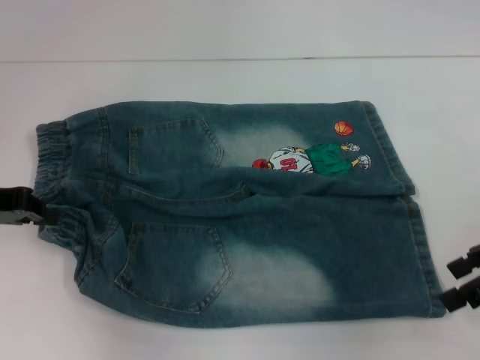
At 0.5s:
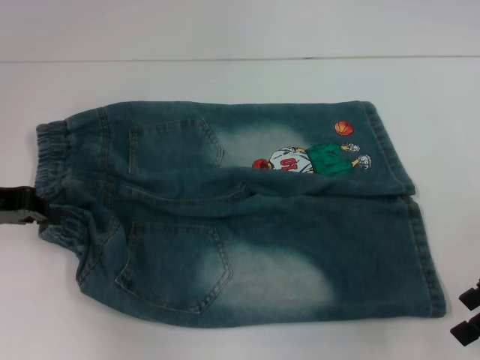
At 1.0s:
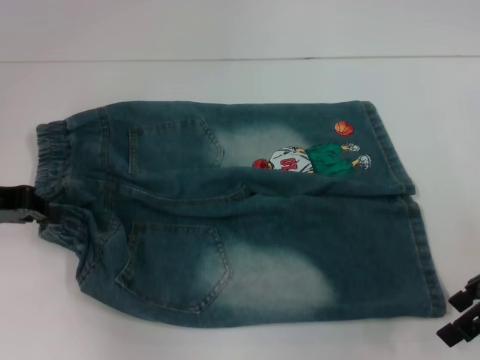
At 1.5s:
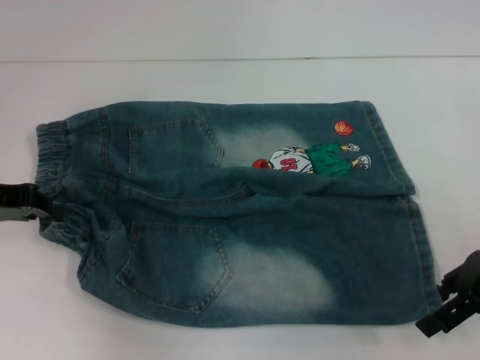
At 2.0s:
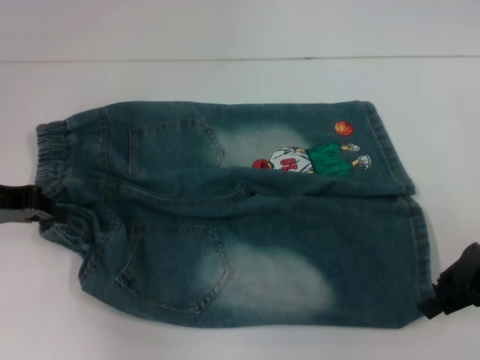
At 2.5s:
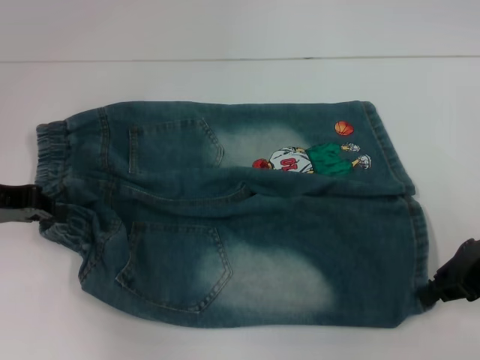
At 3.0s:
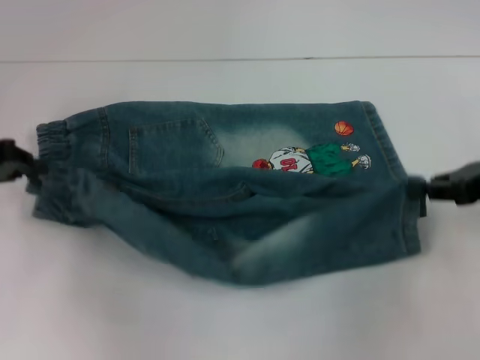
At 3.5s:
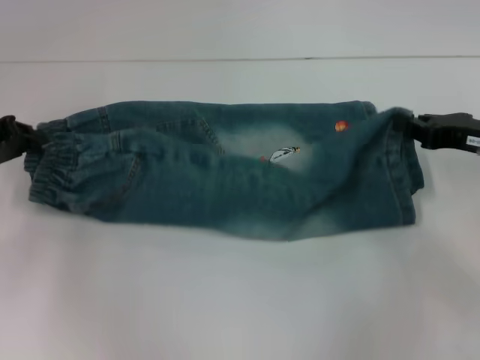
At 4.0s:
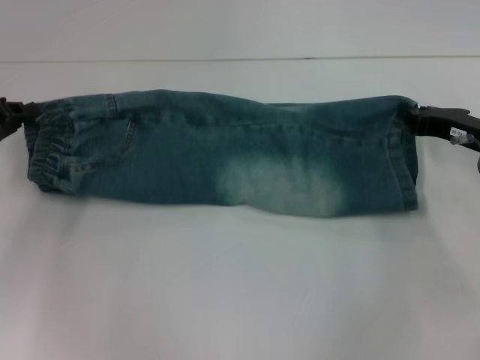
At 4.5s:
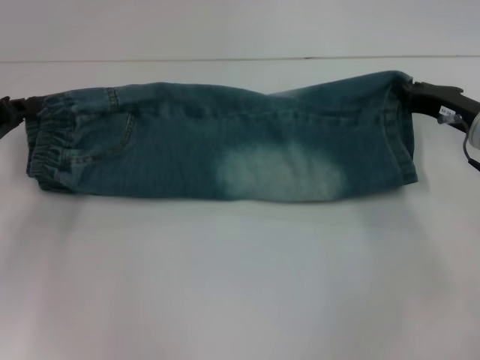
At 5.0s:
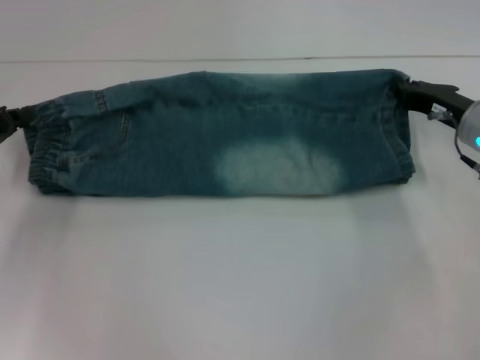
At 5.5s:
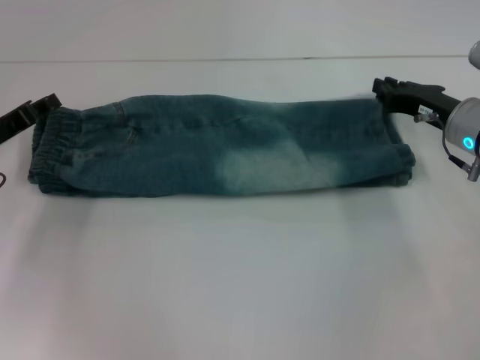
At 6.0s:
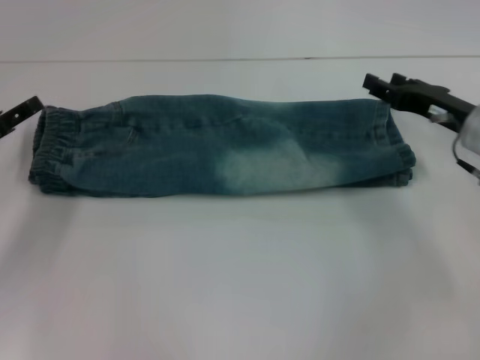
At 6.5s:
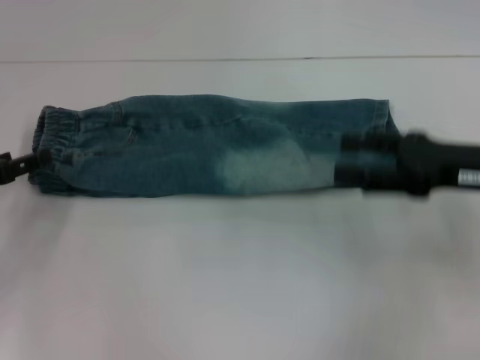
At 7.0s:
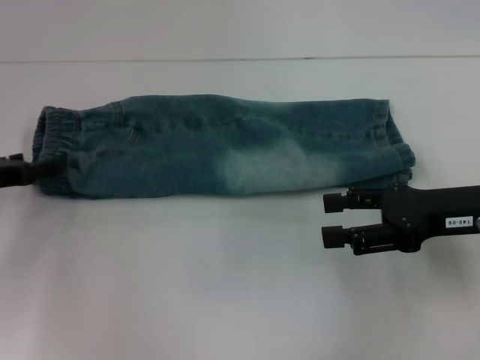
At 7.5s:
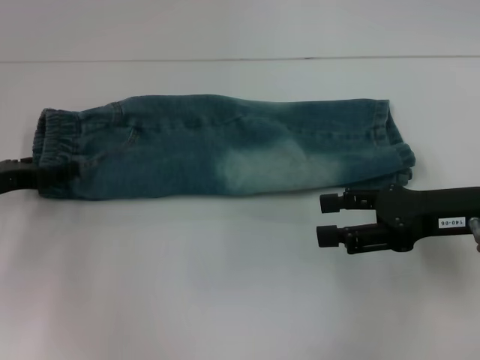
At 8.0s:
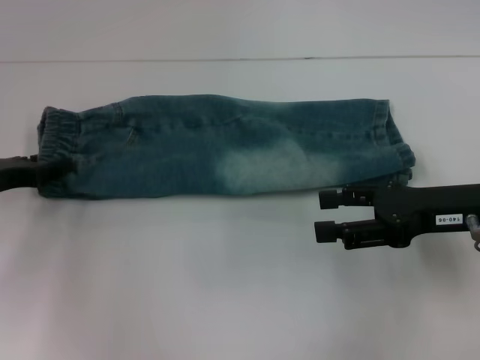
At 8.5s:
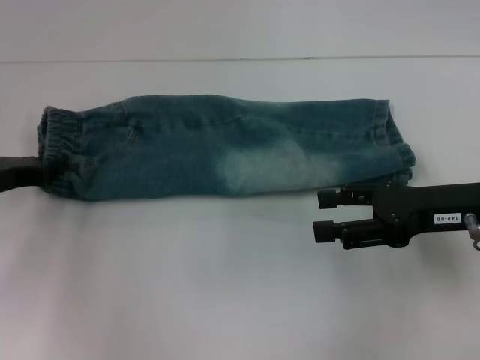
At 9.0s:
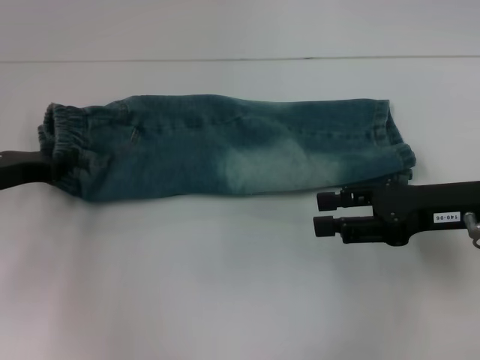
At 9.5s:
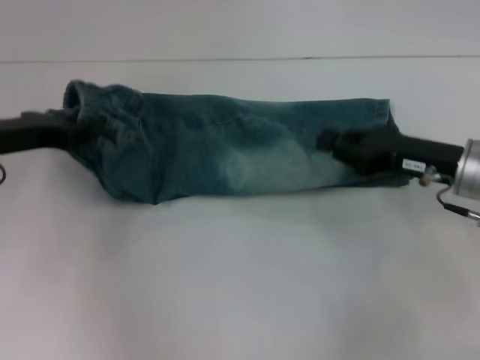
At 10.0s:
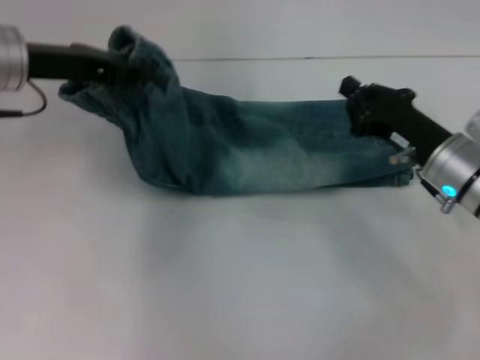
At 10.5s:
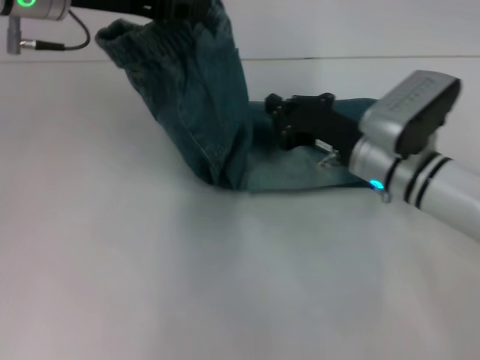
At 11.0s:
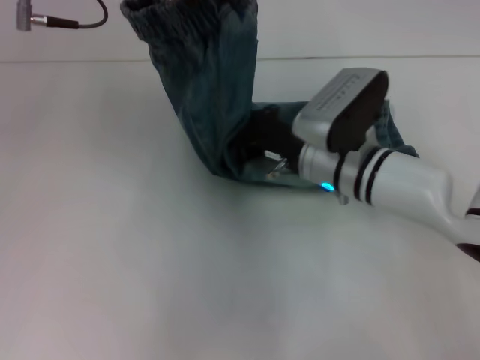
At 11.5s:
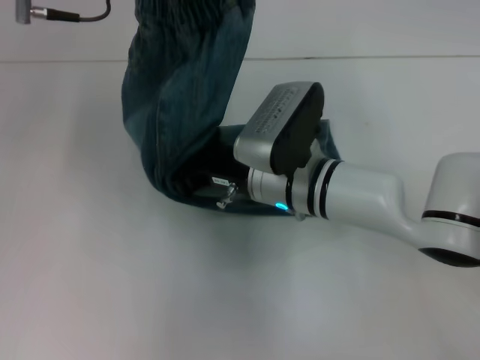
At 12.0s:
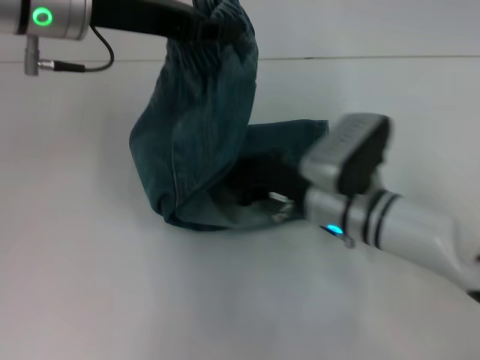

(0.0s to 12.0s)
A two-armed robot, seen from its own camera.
Step, 0.0s - 2.0s: Grab the lower right pant leg with your right hand.
Step, 2.5s - 5.0s: Fold upward with your left hand.
Step, 6.0s - 8.5s: Hold the waistband with your left hand.
Step, 9.0s - 11.5s: Press the middle of the pants with your right hand.
0.0s - 2.0s: The right gripper closes.
2.0s - 4.0s: The right gripper goes about 10 cm downward and forward, and closes its fingers.
4.0s - 6.0s: The right gripper opens its fingers, while the left gripper opens up.
6.0s - 8.0s: The right gripper travels backward by about 10 cm, and opens up.
8.0s - 10.0s: The right gripper is displaced downward by some 5 cm, and closes; the left gripper heads upward, to the right and forward, covering approximately 15 cm, and closes up.
10.0s - 12.0s: The right gripper is displaced to the left by roughly 10 cm, while the left gripper is displaced to the right by roughly 5 cm.

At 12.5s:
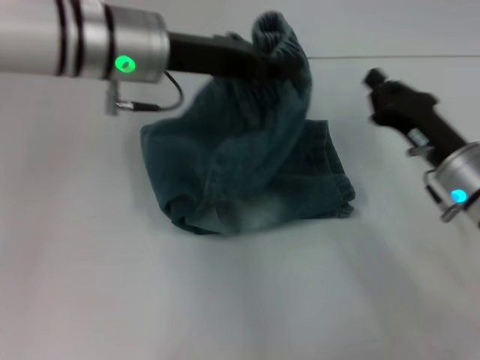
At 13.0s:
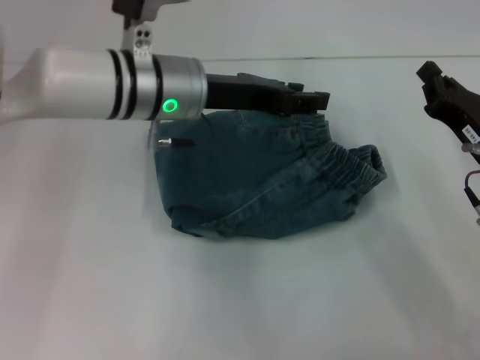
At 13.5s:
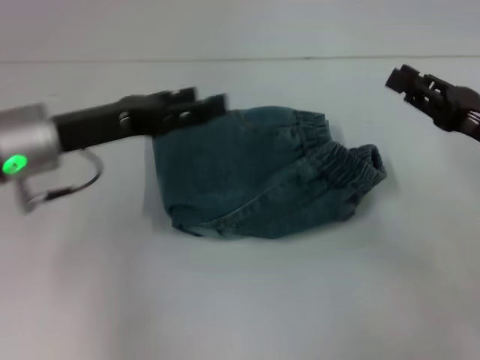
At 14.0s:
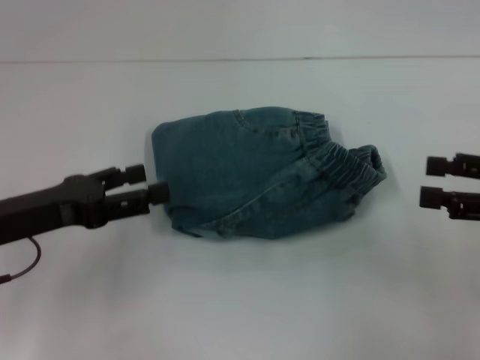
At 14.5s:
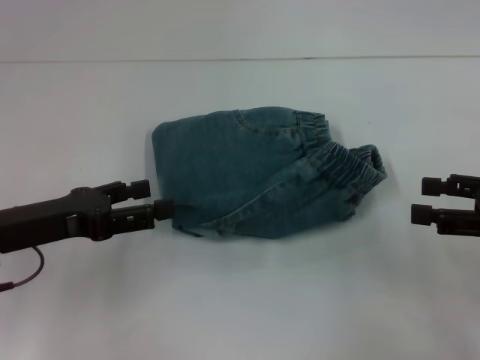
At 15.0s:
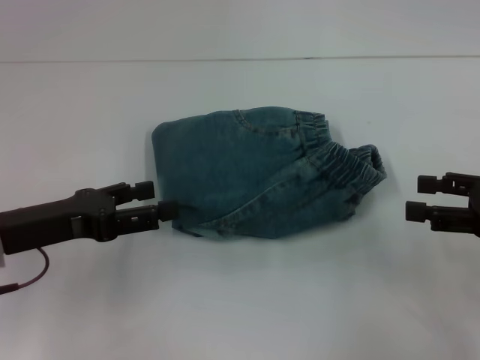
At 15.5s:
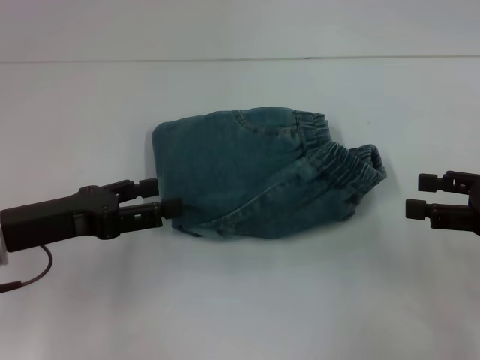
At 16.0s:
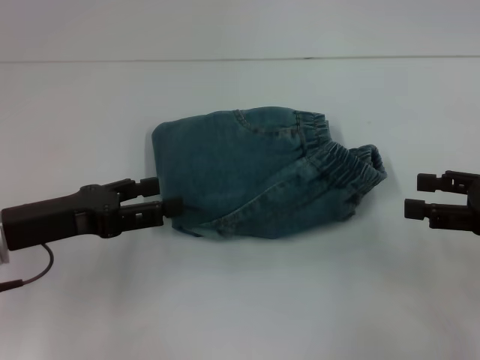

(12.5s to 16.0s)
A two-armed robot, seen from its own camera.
12.5s - 14.5s: The left gripper travels to the left, backward and downward by roughly 20 cm, and opens up, while the right gripper travels to the right, upward and backward by roughly 15 cm, and opens up.
14.5s - 16.0s: Both grippers stay about where they are.
